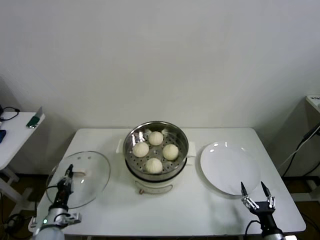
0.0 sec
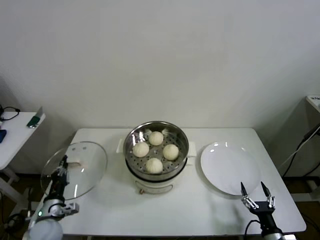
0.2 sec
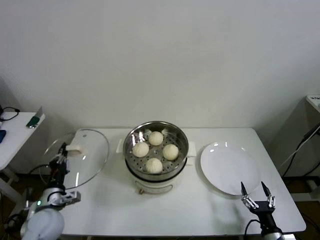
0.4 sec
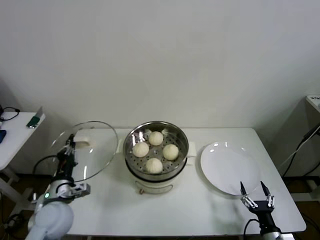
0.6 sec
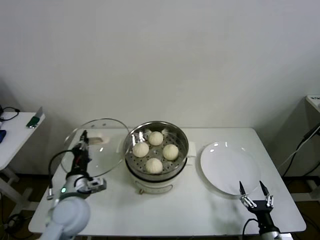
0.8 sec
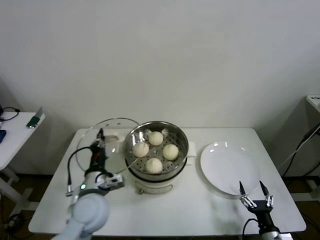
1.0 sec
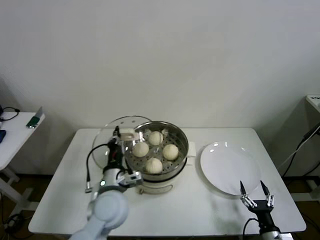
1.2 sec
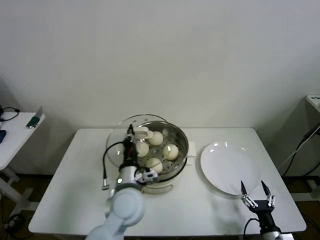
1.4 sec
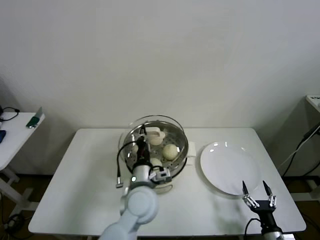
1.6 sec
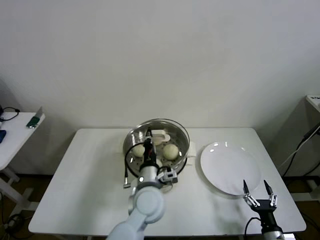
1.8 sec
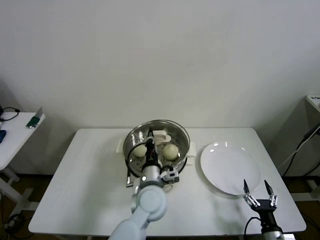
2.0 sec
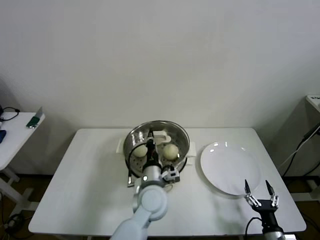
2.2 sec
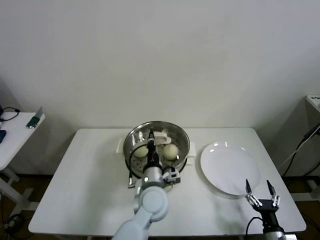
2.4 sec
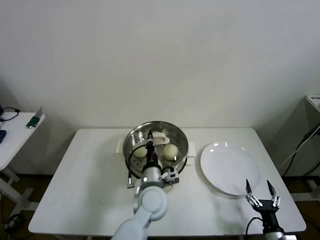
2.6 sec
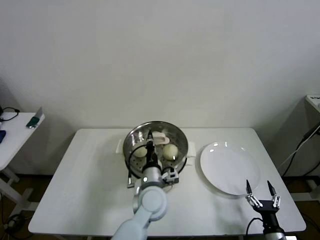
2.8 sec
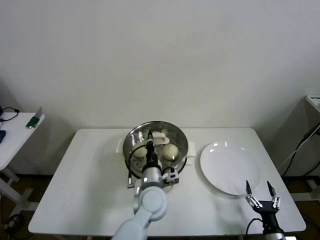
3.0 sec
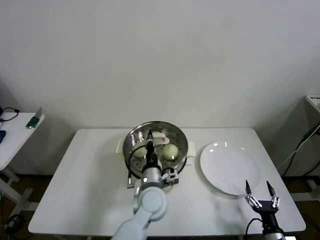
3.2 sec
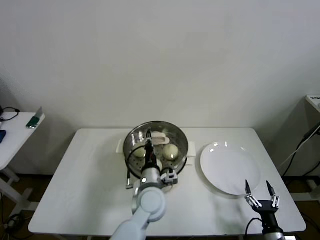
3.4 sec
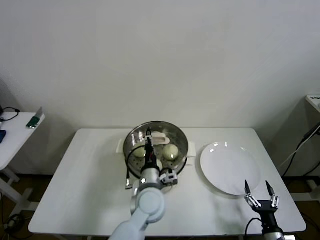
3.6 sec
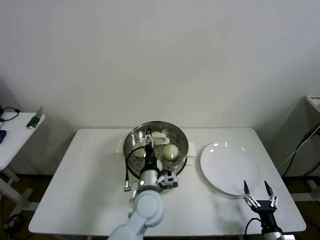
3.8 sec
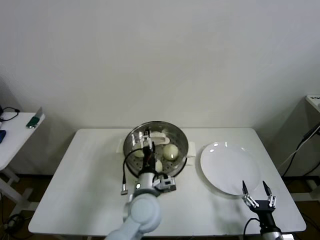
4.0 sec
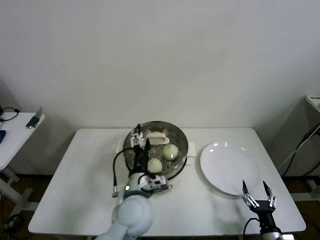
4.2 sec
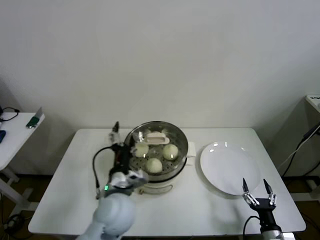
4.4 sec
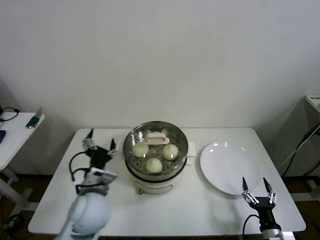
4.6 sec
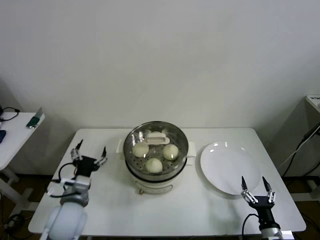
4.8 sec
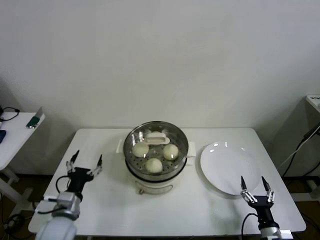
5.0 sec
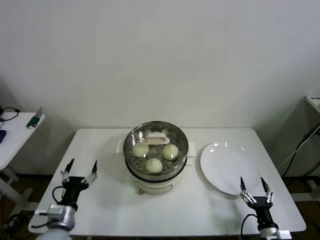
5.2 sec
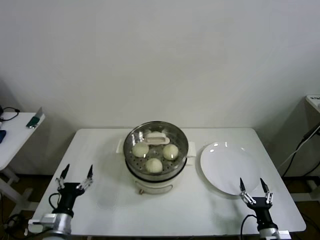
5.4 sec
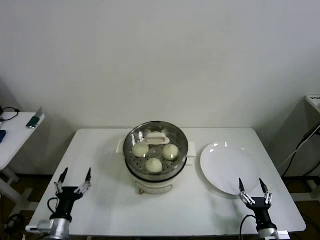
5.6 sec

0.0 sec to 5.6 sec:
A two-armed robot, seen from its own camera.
Step, 0.0 sec to 3.4 sec: Place the pot lid on the steamer with left gripper.
0.0 sec to 1.4 sec: The left gripper goes some 35 cm to the right and upward.
1.4 sec to 2.8 sec: The left gripper heads to the right, covering about 10 cm.
2.8 sec to 4.2 sec: The left gripper moves roughly 5 cm, and opens its fingers.
4.2 sec to 5.6 sec: The left gripper heads to the left and downward, covering some 30 cm.

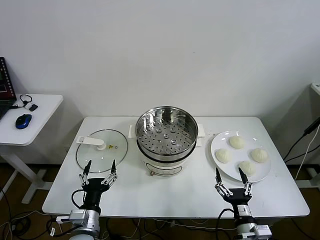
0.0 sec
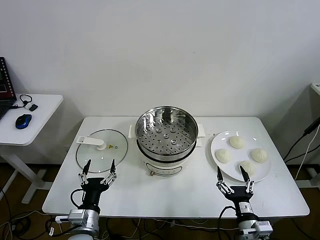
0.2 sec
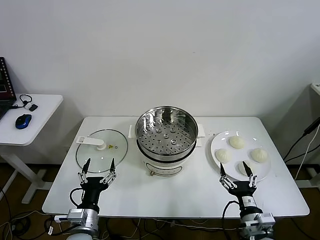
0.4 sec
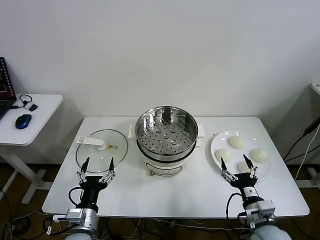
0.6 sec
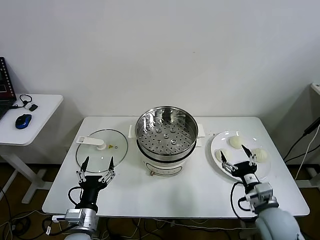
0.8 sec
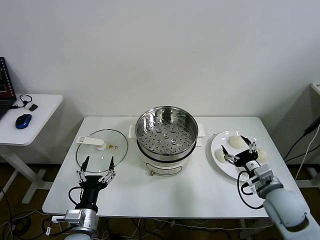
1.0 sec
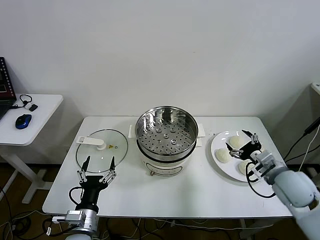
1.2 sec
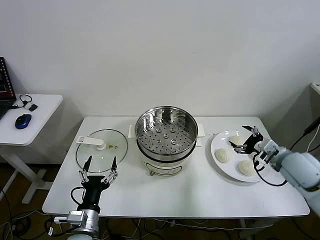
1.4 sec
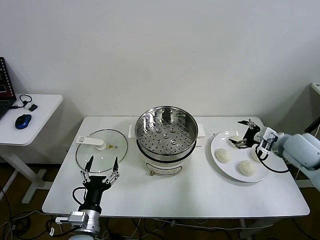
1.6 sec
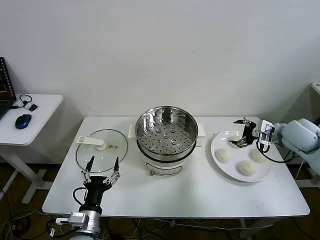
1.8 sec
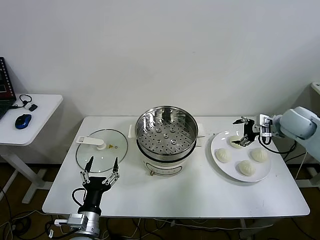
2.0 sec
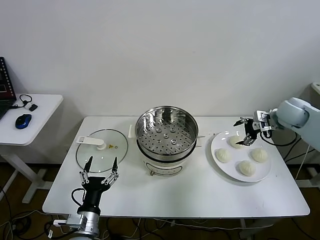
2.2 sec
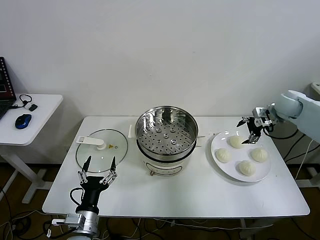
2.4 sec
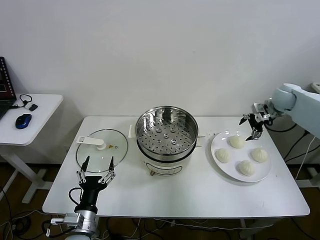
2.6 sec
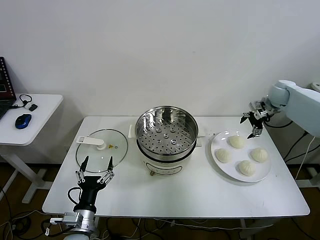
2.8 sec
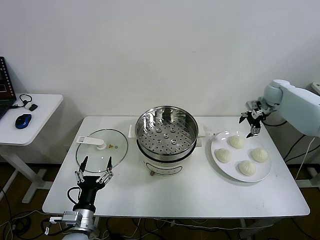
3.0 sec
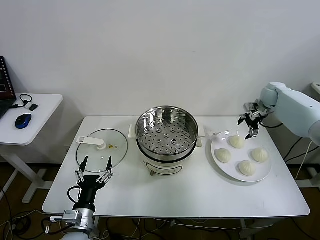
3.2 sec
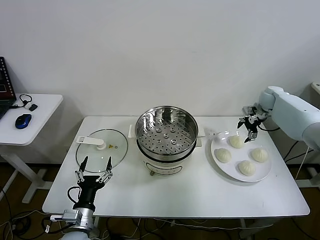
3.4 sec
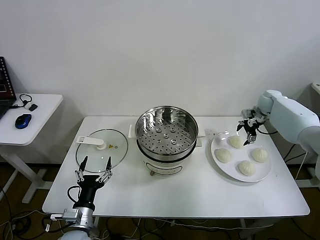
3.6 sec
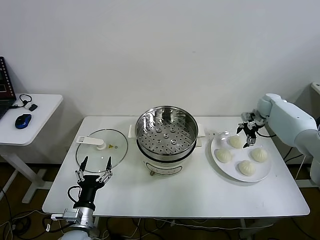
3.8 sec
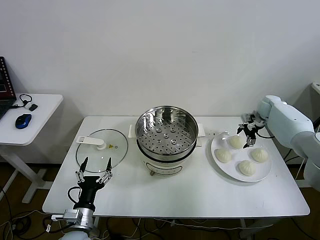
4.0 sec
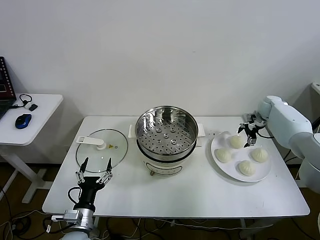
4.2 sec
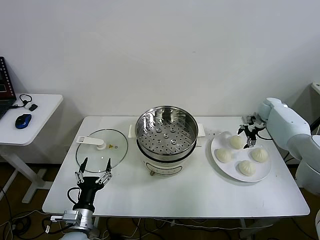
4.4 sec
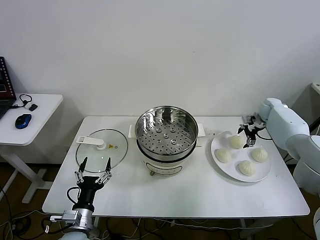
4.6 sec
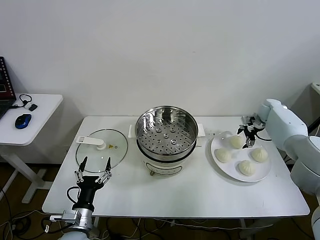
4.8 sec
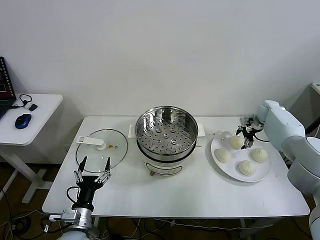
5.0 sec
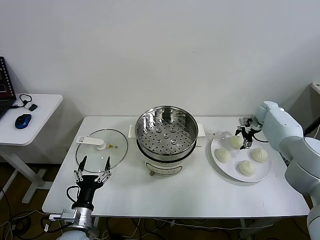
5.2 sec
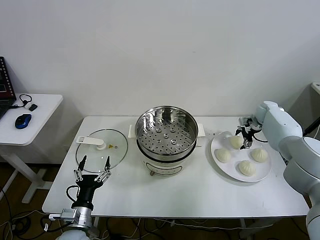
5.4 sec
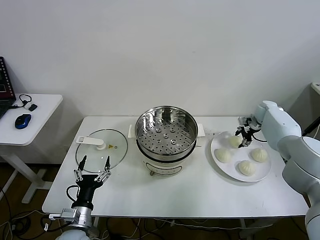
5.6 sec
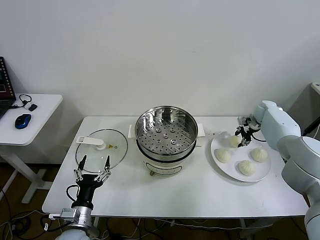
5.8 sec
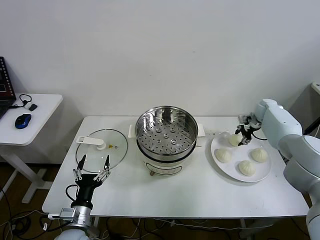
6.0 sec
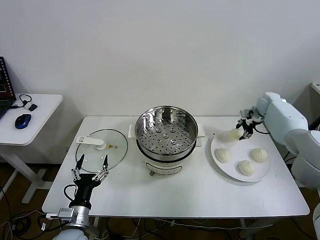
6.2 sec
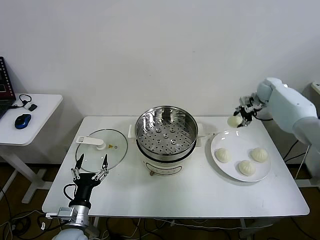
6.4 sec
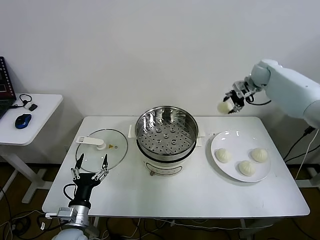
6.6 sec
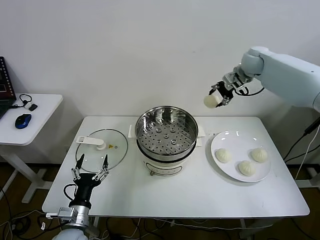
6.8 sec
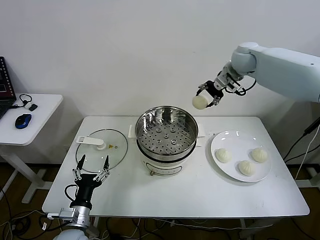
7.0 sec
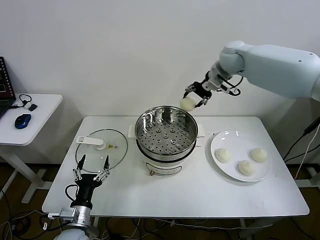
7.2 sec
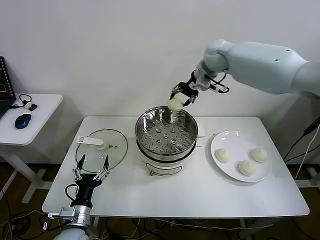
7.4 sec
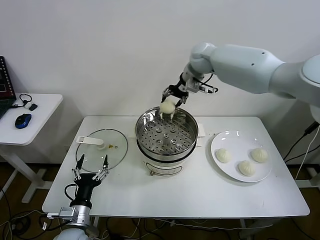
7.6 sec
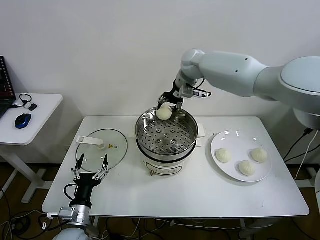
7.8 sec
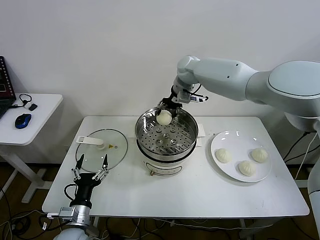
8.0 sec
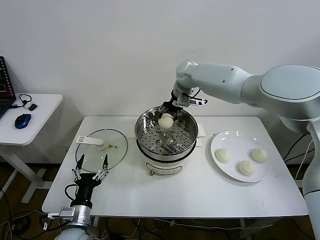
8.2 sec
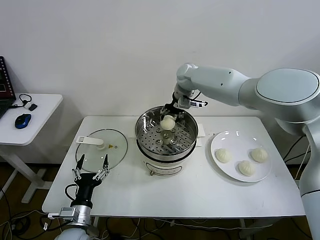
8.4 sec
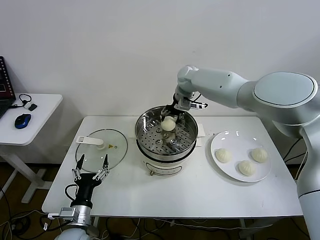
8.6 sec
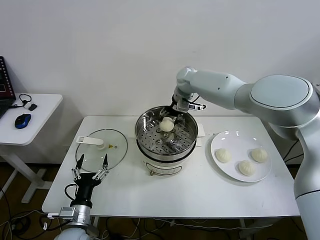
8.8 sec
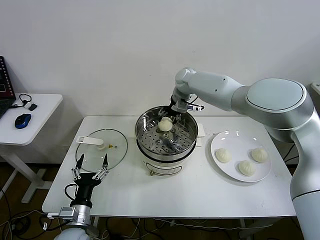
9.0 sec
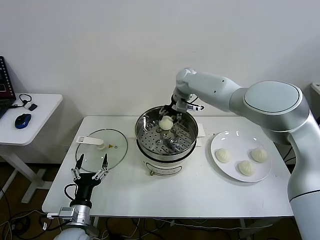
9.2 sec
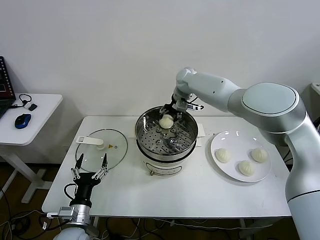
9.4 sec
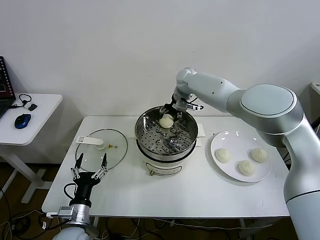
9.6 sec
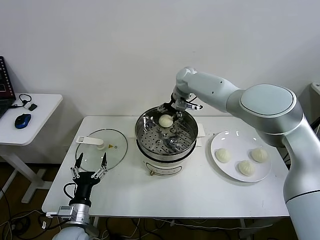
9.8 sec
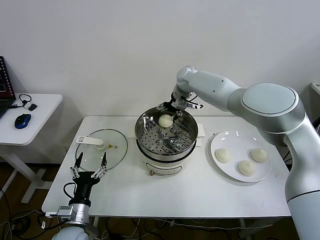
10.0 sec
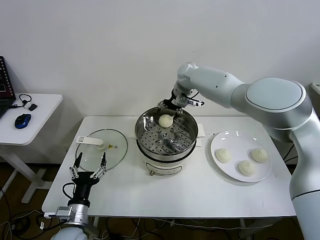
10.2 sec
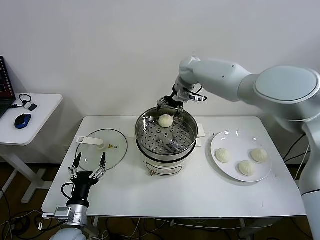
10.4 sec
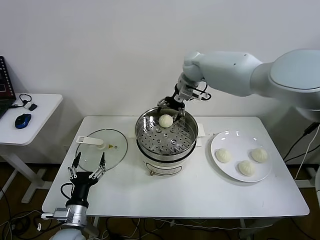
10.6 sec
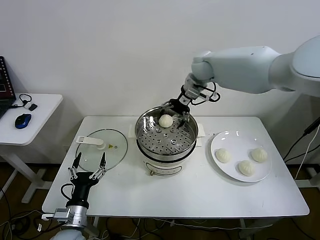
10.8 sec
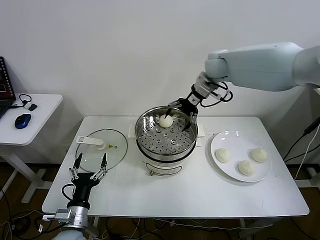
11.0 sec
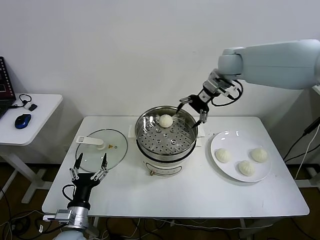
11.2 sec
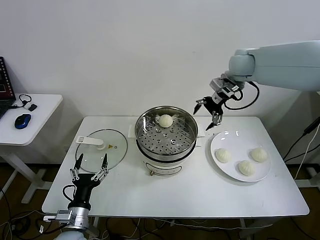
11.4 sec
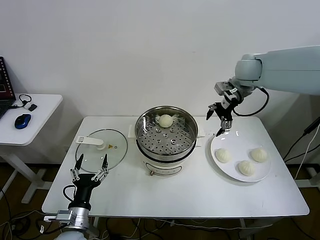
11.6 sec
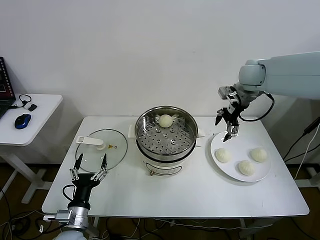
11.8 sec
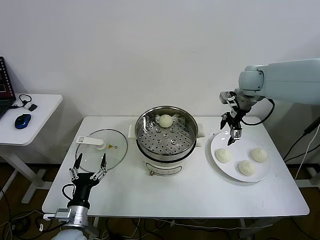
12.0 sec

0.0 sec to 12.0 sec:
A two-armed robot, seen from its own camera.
Step, 0.0 sec to 5.6 sec: Grasp the baozi in the plate with right gripper.
Step, 5.8 sec to 10.4 sec: Place the baozi on the steamer with right gripper.
1.6 sec to 3.0 sec: The right gripper is displaced forward by about 20 cm.
3.0 sec to 4.4 sec: The right gripper heads downward, covering roughly 10 cm.
4.4 sec to 6.0 sec: The right gripper closes its fingers.
6.0 sec to 7.6 sec: The right gripper shifts approximately 40 cm to the left and upward.
7.6 sec to 9.0 sec: The right gripper moves downward, approximately 10 cm.
9.0 sec to 10.4 sec: The right gripper heads upward, covering approximately 5 cm, and opens.
10.4 sec to 12.0 sec: The right gripper goes some 20 cm to the right and backward.

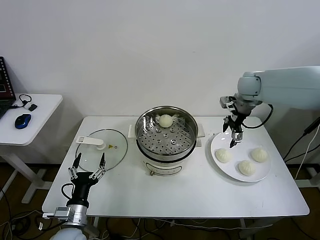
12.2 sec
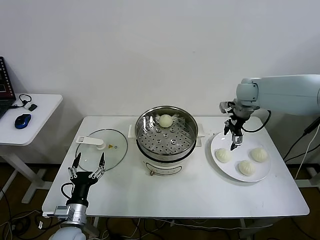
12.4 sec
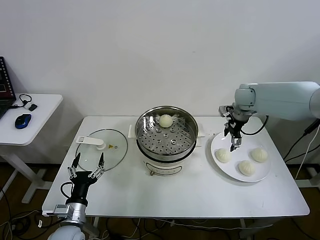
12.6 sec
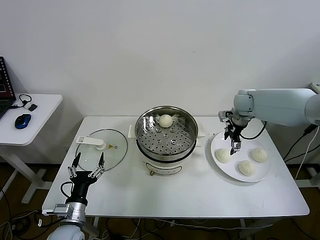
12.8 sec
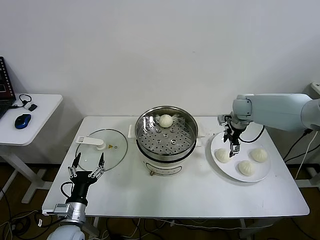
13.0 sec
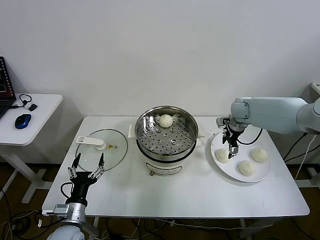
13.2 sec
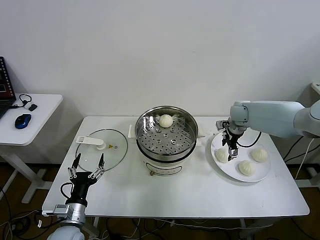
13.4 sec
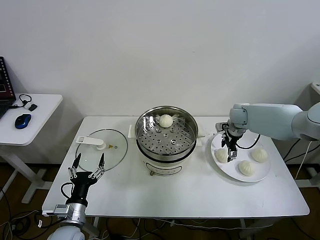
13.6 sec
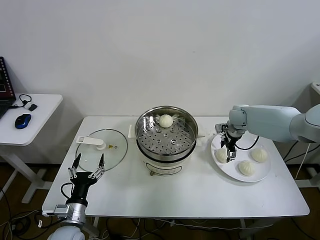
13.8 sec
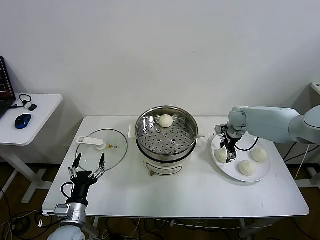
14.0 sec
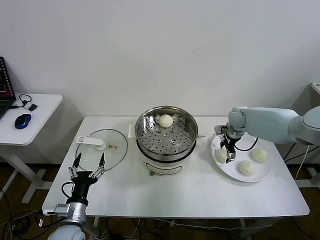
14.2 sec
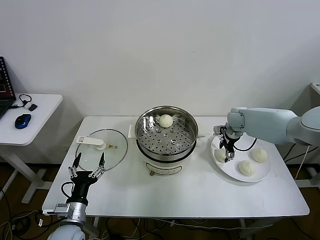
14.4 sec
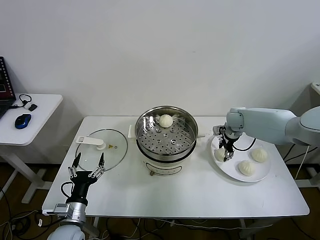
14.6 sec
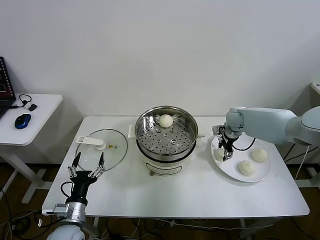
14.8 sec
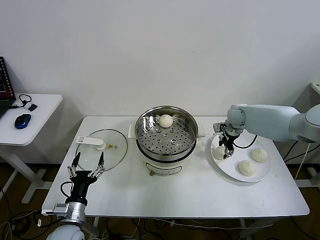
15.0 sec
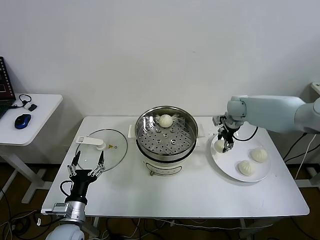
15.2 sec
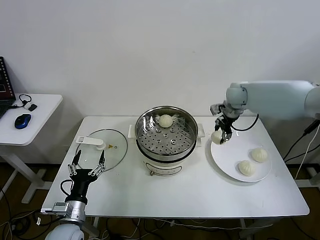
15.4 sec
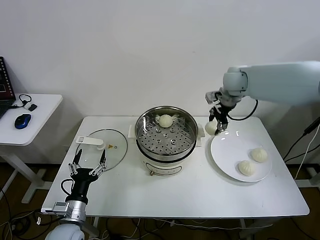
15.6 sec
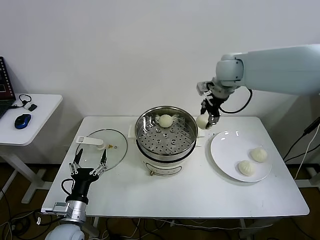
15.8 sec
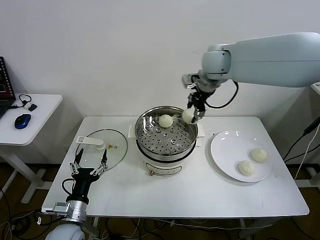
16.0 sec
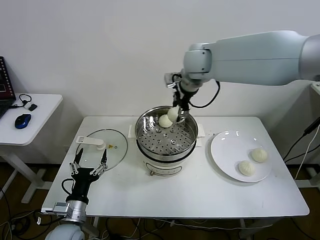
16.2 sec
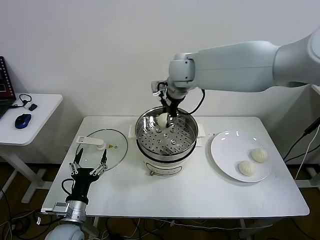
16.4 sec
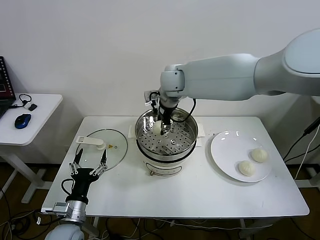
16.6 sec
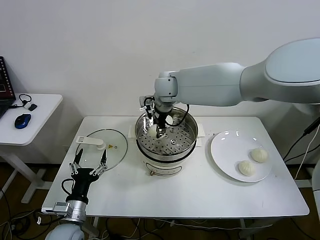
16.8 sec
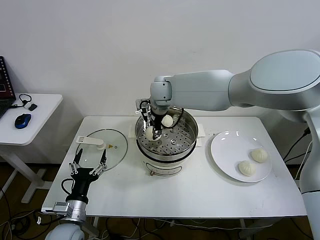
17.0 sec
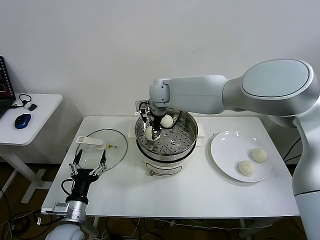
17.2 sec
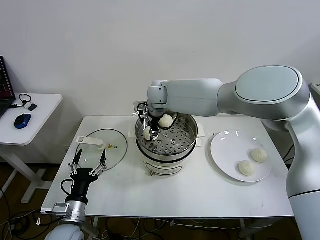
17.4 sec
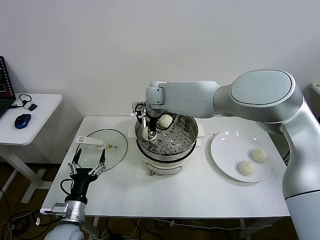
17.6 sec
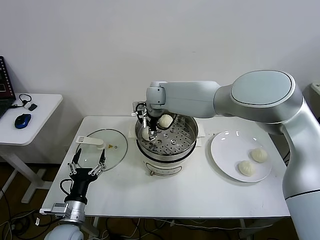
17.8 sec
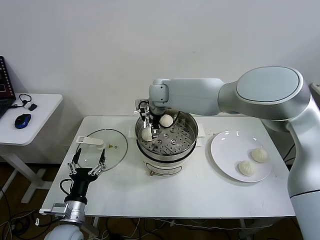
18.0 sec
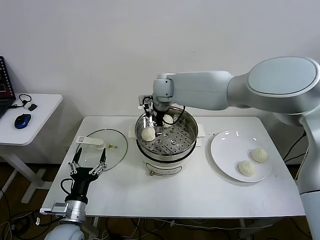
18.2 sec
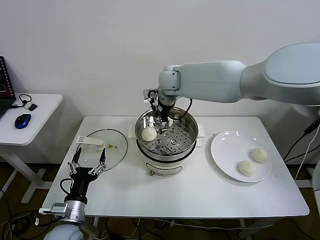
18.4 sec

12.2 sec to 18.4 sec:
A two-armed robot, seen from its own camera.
Step, 12.2 sec to 14.6 sec: Grasp the baozi in the plate with right gripper.
Step, 15.0 sec to 18.0 sec: Place the baozi on the steamer with right gripper.
12.2 sec to 13.8 sec: The right gripper is displaced downward by approximately 15 cm.
13.8 sec to 15.4 sec: The right gripper moves upward, approximately 10 cm, and closes its fingers.
15.4 sec to 16.8 sec: The right gripper moves to the left, some 25 cm.
16.8 sec to 18.4 sec: The right gripper opens.
